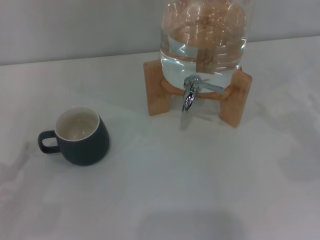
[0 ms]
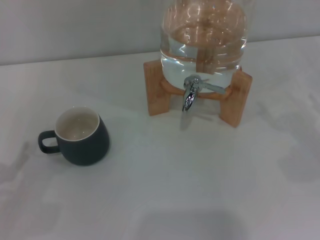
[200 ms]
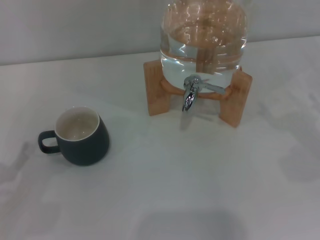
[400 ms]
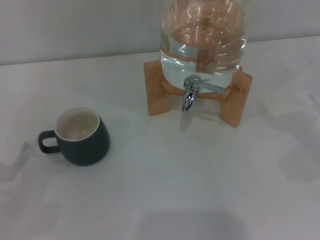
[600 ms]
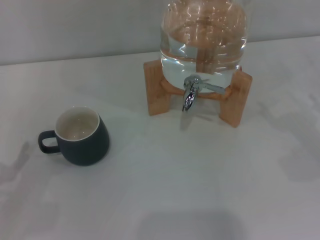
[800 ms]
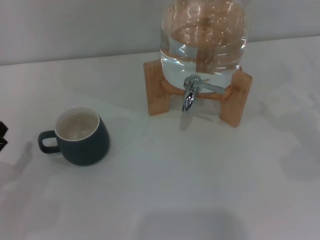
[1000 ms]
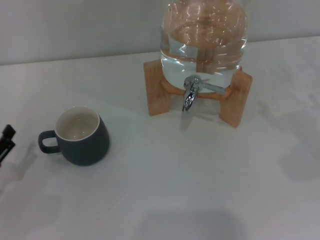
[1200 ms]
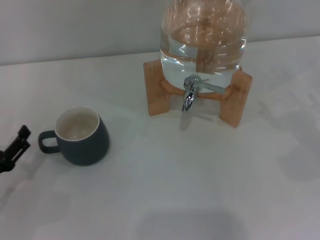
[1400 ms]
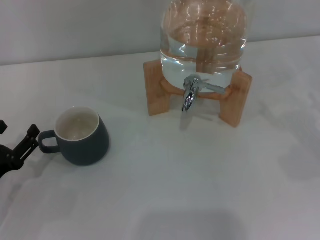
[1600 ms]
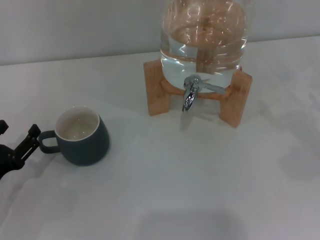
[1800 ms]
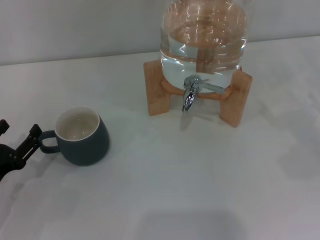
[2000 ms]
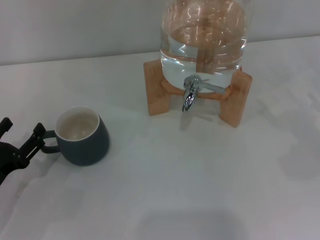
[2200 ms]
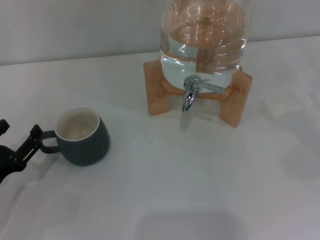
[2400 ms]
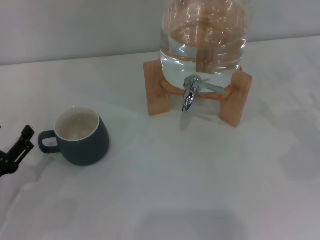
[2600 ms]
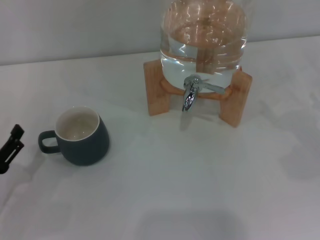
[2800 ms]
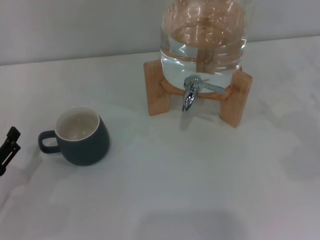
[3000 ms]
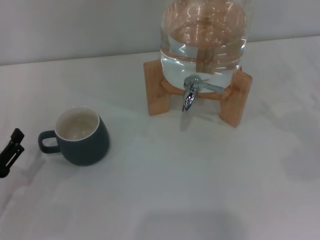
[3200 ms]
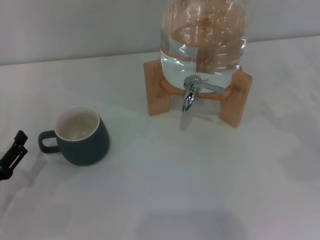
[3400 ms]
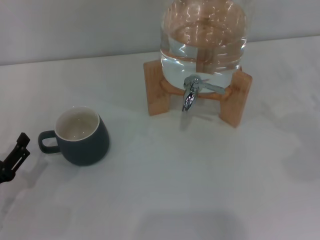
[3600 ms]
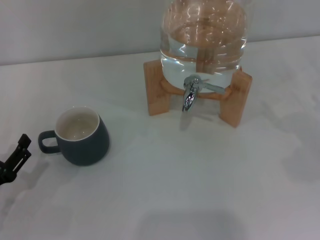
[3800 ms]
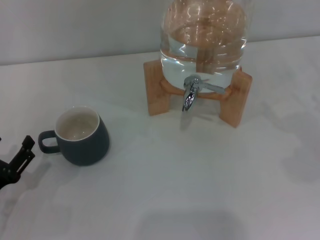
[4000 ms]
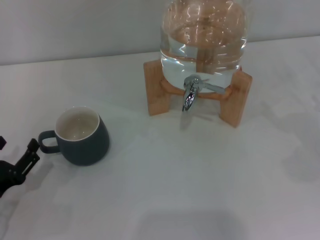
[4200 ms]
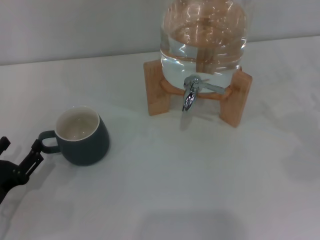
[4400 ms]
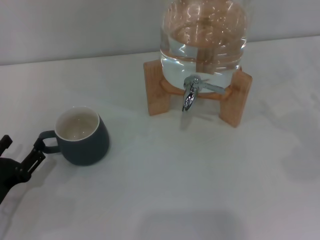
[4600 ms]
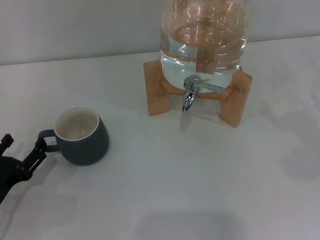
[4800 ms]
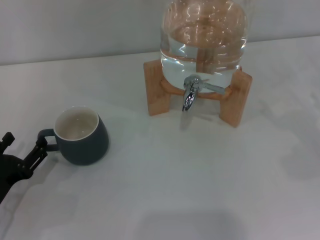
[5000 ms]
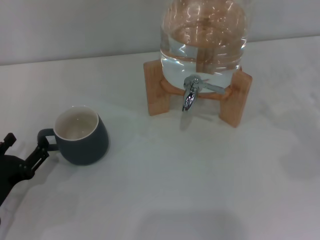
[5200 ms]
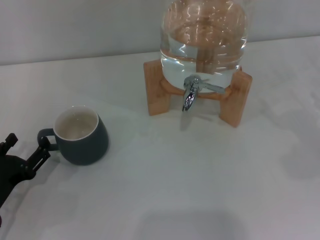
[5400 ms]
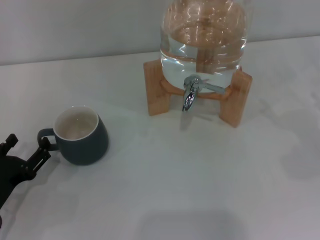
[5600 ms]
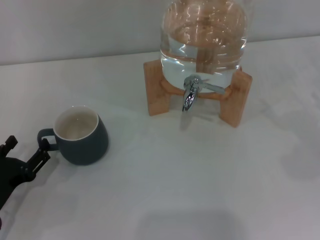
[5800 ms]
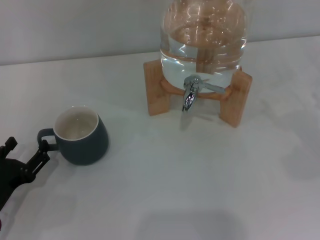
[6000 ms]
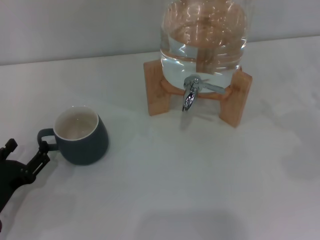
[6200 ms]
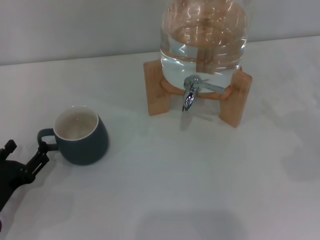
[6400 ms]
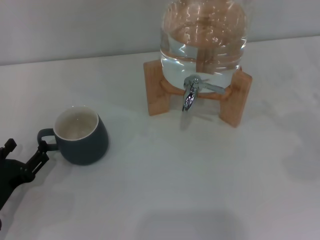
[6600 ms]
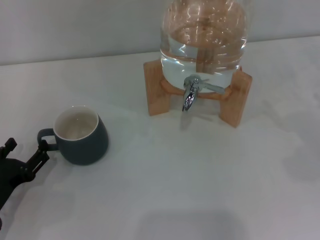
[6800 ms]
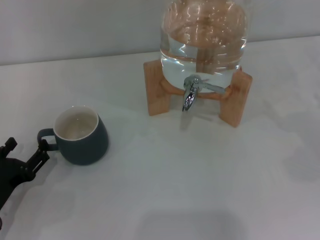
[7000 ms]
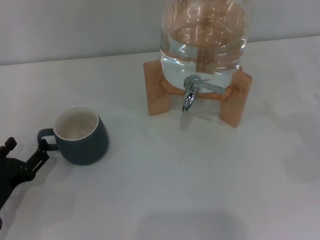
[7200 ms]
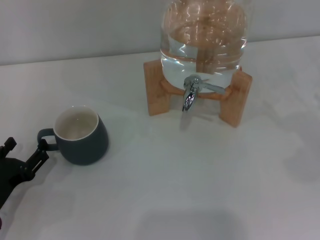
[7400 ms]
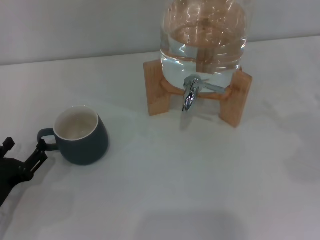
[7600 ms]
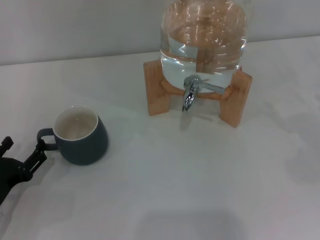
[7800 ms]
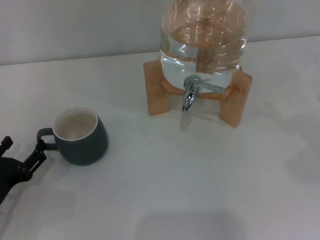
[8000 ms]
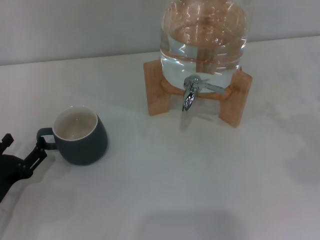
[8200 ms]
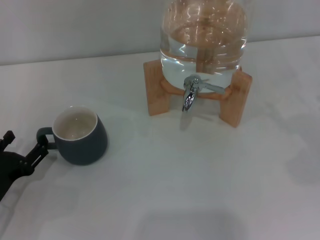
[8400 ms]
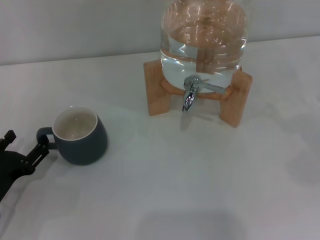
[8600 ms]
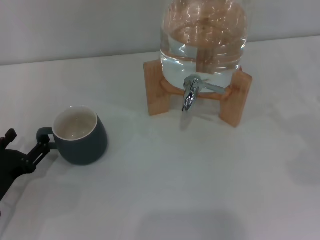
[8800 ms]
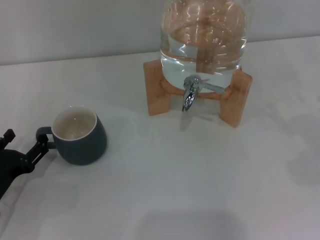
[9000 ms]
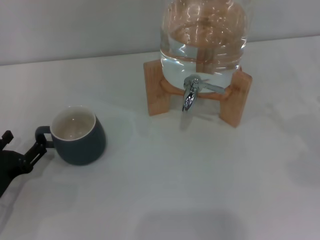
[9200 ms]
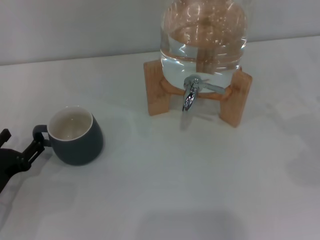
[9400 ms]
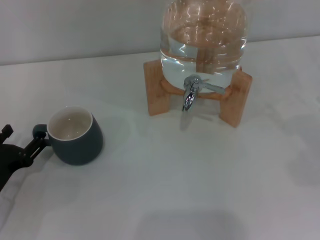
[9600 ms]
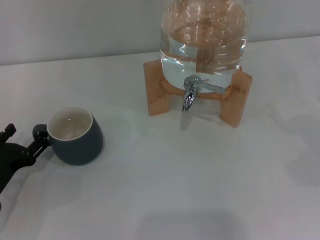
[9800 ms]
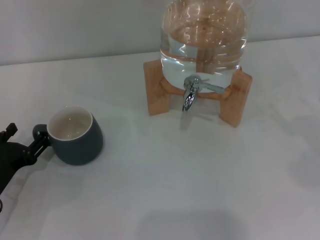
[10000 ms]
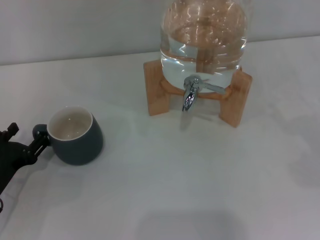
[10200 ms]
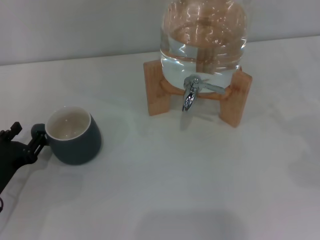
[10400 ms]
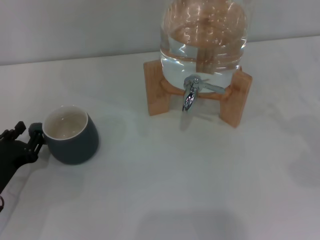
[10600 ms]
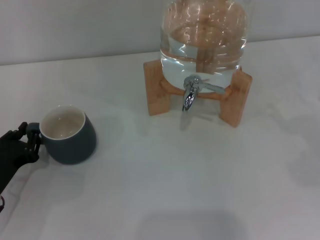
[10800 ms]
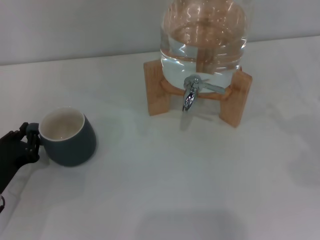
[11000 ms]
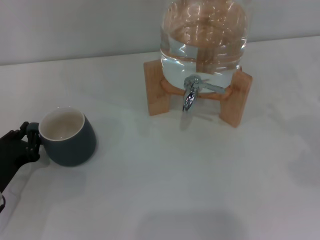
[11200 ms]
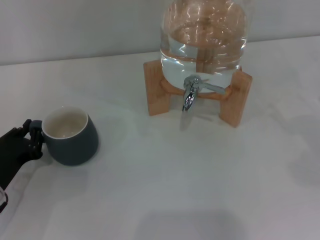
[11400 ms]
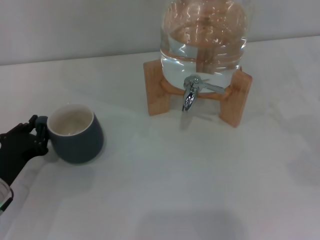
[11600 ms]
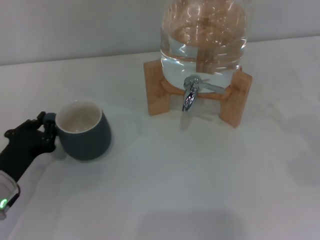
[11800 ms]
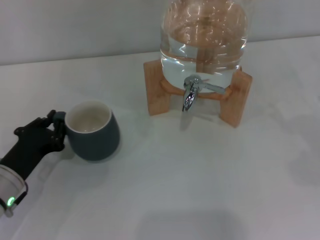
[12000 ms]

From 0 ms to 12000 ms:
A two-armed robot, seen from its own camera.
Task of the whole recording: the left gripper pick up the black cup and place it horizontally under the faucet, the right gripper turn on the faucet to fill the cup, and then turn off the faucet.
From 0 ms to 4400 ms: The grippers stay close to where they were, moving slightly.
From 4400 ms to 6000 ms: The grippers stay close to where they were, moving slightly.
From 6000 ms to 7600 ms: The two grippers keep their place.
From 7600 ms to 9000 ms: The two grippers keep their place.
From 9000 ms to 10400 ms: The grippers make only small movements.
From 10400 ms to 12000 ms: The left gripper closes its fingers.

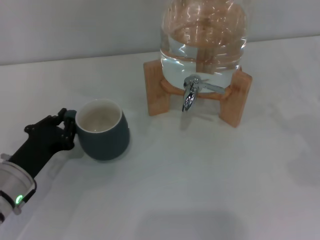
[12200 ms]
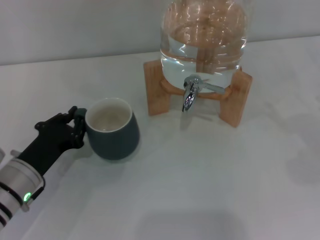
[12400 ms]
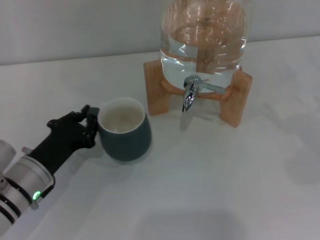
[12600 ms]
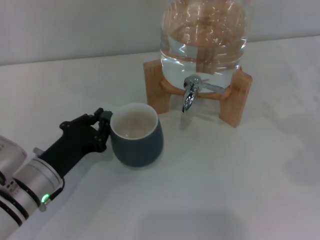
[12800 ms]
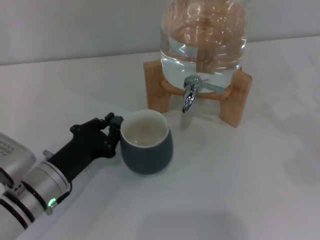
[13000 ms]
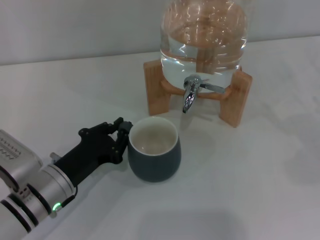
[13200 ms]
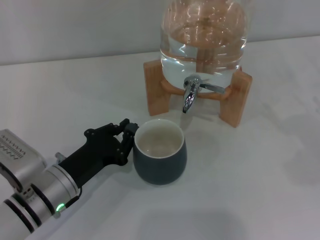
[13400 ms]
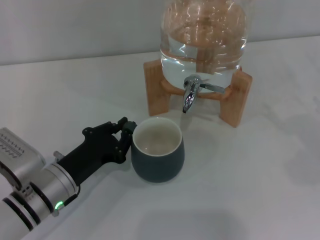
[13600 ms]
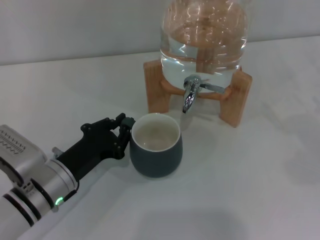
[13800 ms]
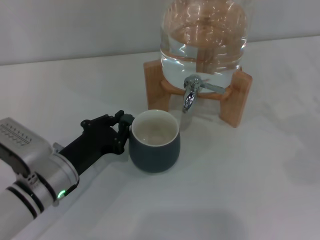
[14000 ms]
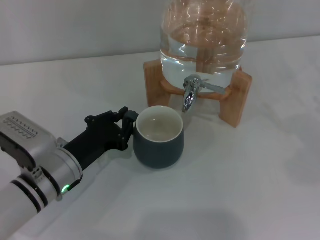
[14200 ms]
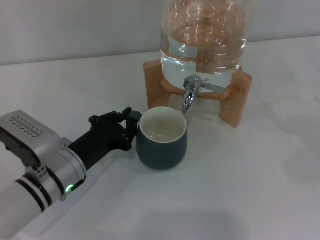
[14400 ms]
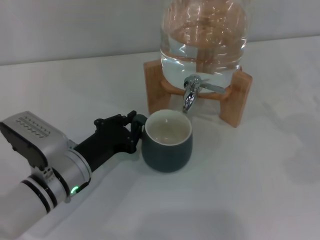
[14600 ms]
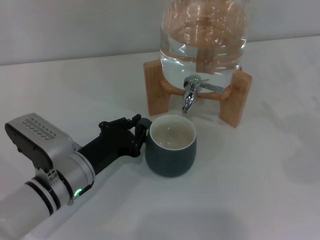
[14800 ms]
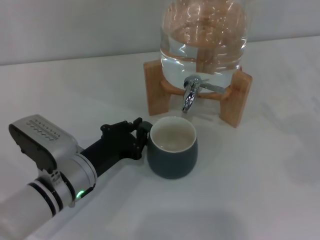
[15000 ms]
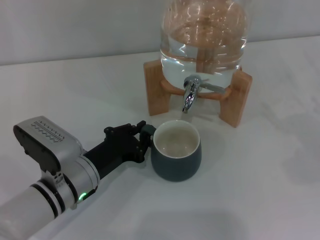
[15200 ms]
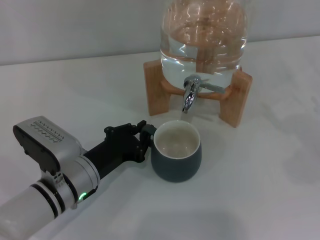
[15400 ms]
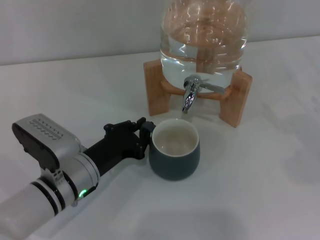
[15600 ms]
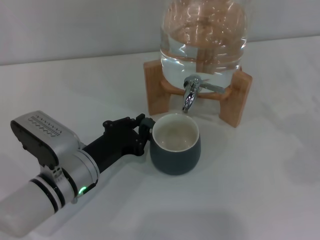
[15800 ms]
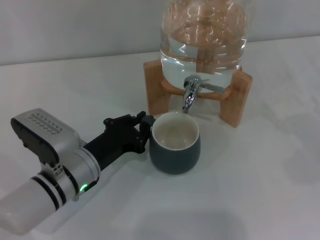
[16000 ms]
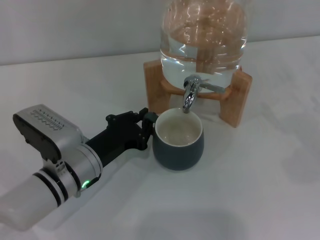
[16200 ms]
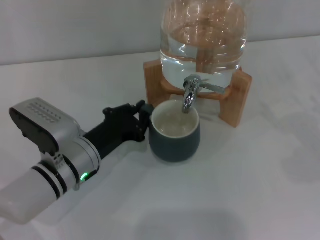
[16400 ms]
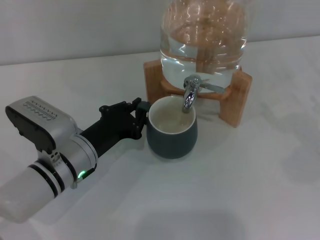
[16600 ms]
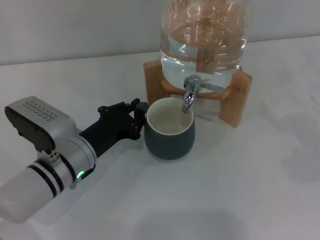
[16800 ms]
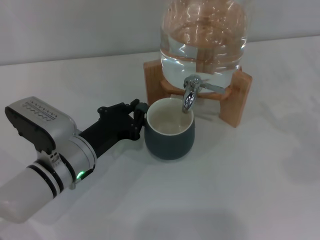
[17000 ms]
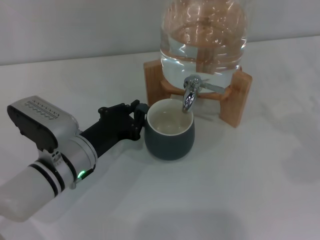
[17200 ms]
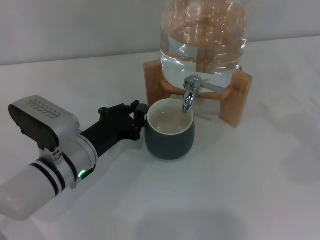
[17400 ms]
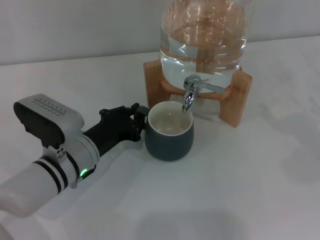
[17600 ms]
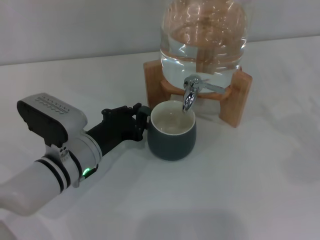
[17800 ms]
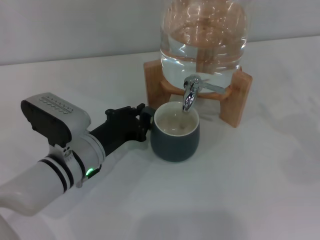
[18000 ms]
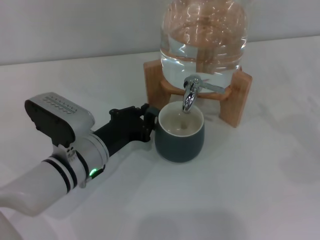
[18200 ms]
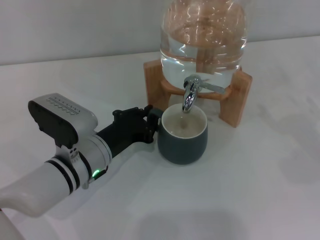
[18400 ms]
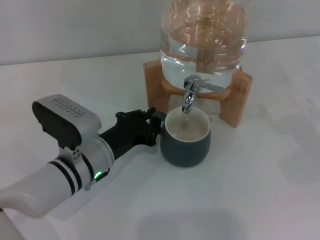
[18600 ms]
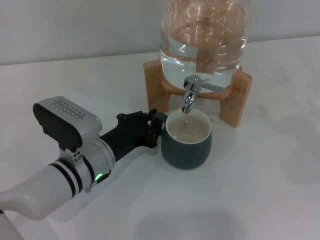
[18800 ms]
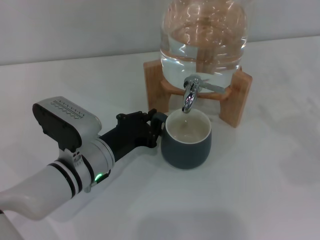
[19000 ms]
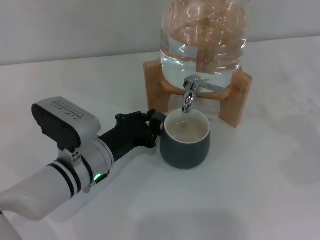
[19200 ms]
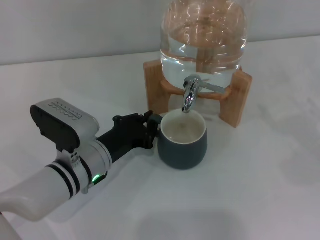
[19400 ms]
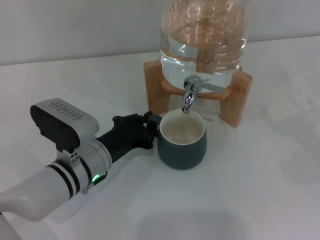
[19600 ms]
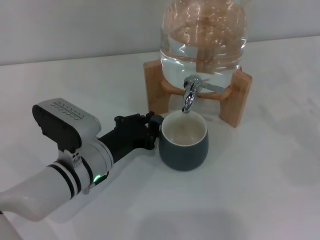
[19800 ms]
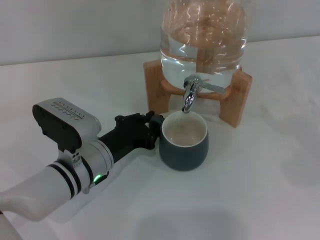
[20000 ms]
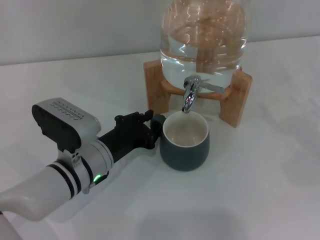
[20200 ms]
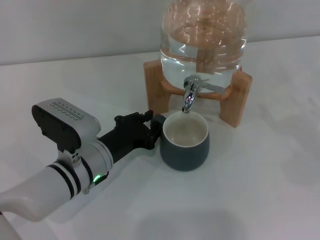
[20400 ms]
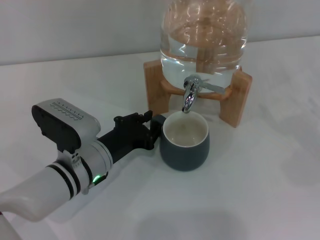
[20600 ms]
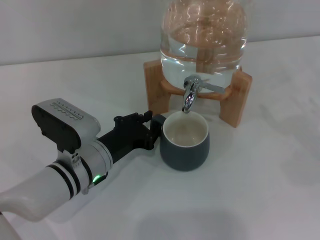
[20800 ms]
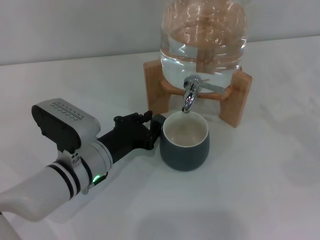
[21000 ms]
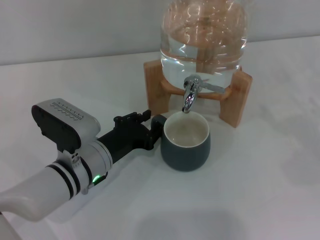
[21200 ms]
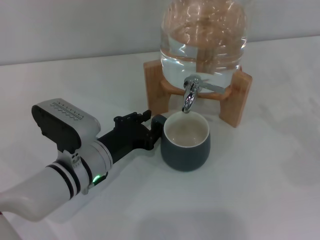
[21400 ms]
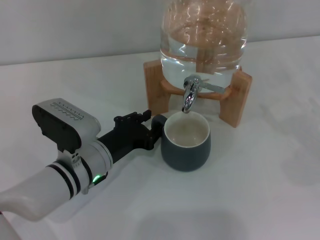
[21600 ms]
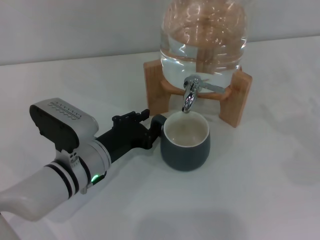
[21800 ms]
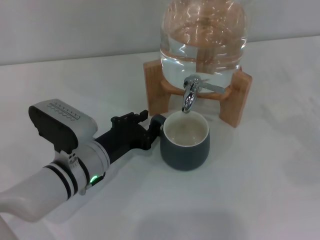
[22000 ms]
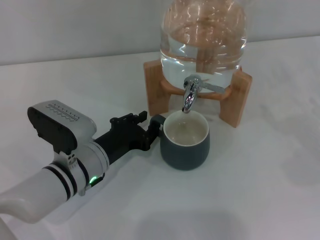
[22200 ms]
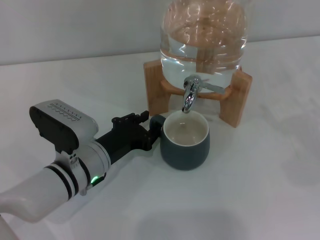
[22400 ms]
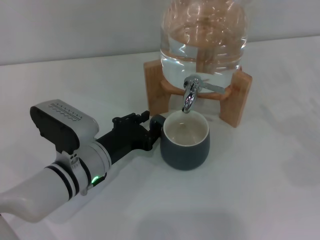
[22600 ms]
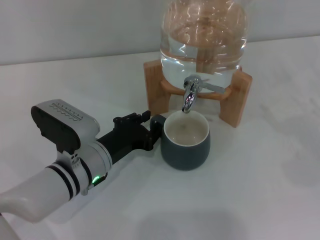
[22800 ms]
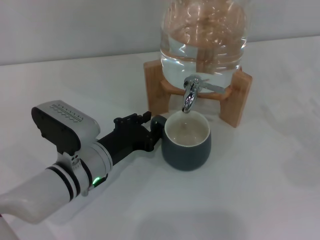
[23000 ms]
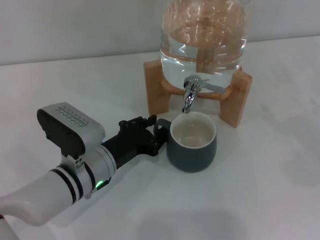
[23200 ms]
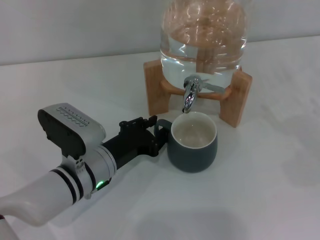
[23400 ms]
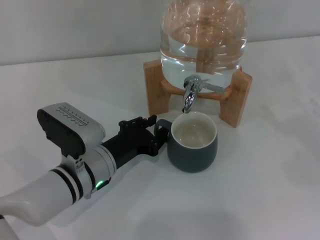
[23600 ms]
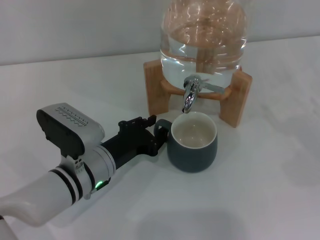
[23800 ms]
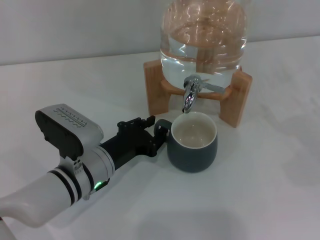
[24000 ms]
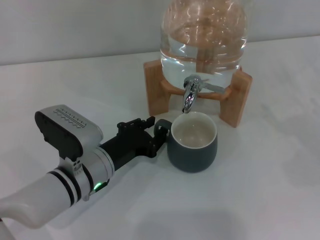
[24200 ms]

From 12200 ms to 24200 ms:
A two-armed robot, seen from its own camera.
Task of the whole recording: the left gripper pick up the black cup and place it horizontally under the faucet, the right gripper turn on the faucet to fill the cup, and then turn off the faucet.
From 12200 ms to 13800 ms: The left gripper goes roughly 5 cm to the right.
From 13800 ms to 16600 ms: The grippers make only small movements.
From 16600 ms to 18200 ms: The grippers make only small movements.
From 18200 ms to 22600 ms: Both grippers stay about where they are.
From 22600 ms to 24200 ms: Neither gripper changes place.
